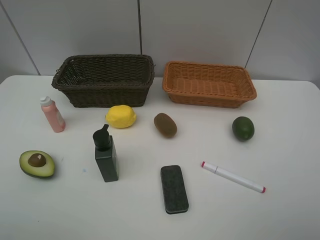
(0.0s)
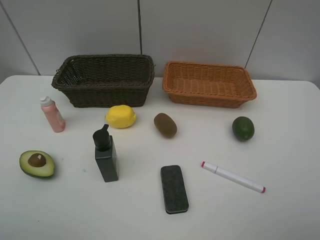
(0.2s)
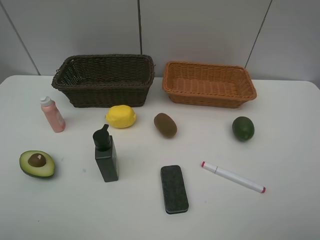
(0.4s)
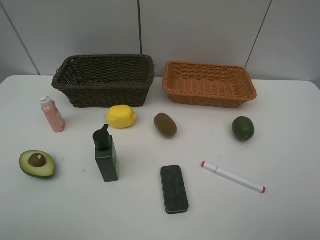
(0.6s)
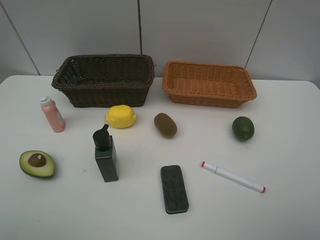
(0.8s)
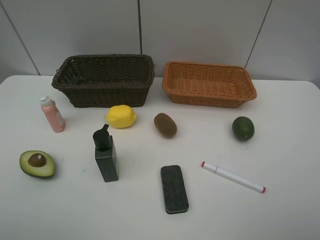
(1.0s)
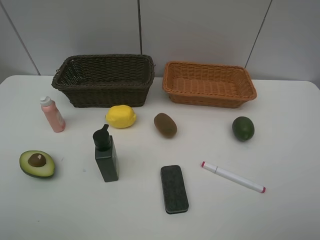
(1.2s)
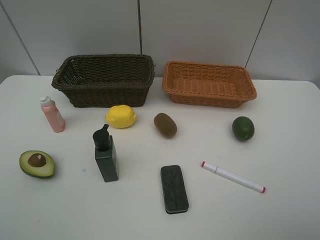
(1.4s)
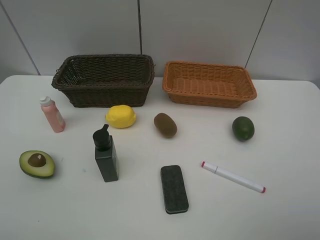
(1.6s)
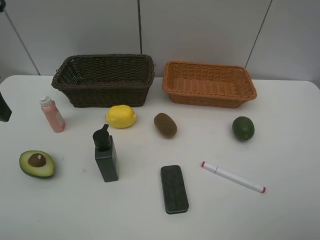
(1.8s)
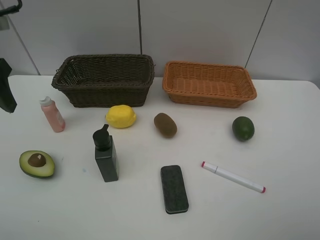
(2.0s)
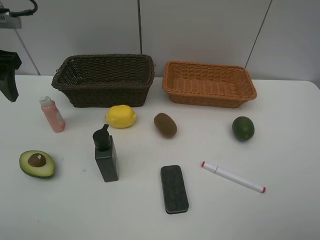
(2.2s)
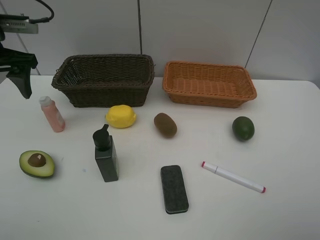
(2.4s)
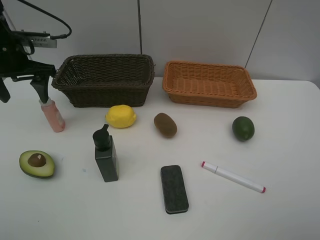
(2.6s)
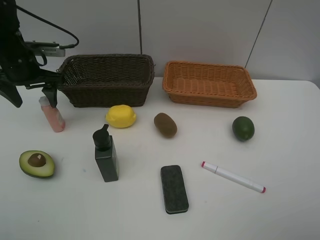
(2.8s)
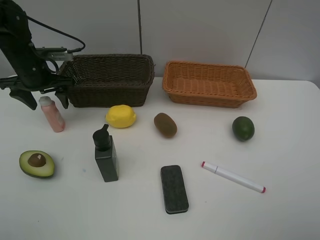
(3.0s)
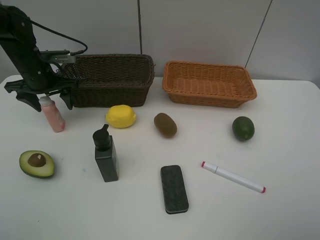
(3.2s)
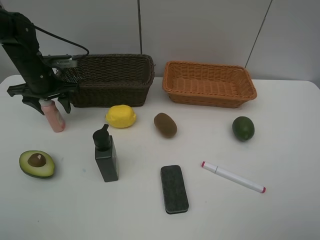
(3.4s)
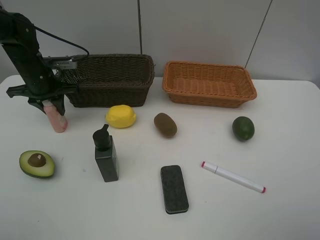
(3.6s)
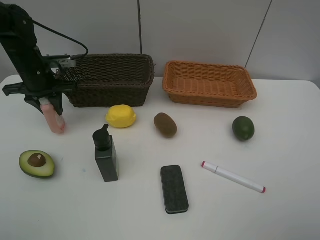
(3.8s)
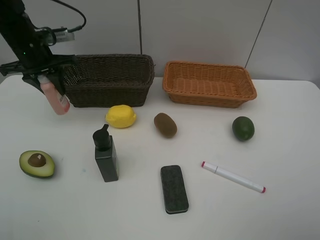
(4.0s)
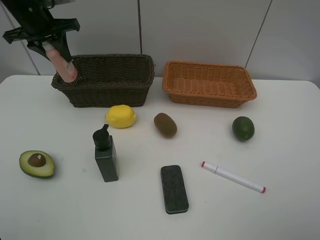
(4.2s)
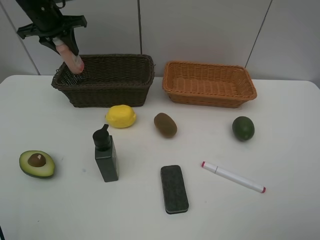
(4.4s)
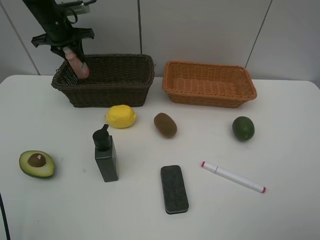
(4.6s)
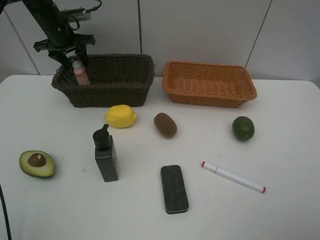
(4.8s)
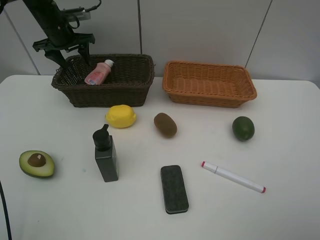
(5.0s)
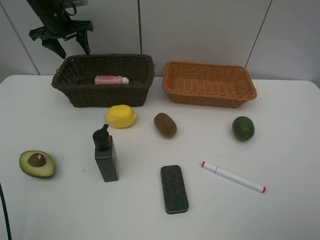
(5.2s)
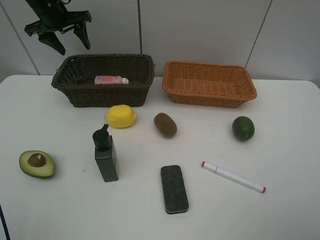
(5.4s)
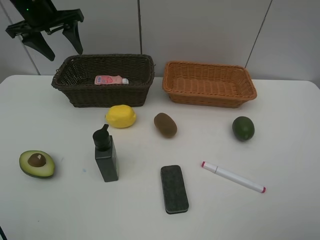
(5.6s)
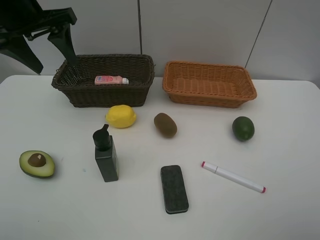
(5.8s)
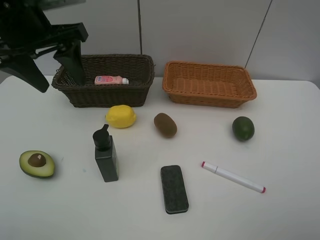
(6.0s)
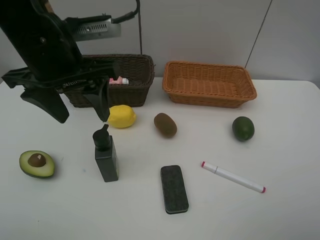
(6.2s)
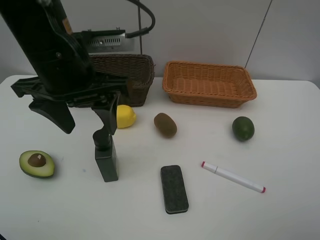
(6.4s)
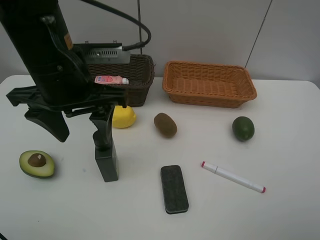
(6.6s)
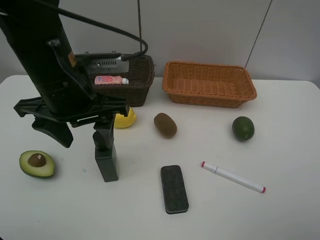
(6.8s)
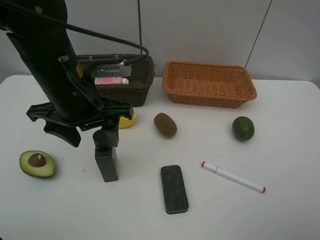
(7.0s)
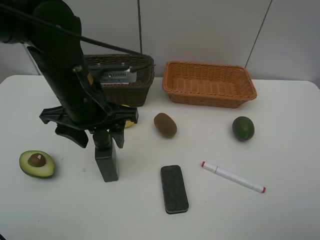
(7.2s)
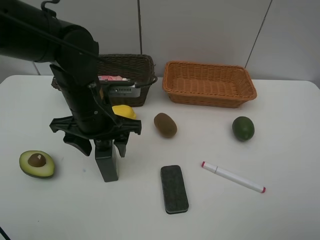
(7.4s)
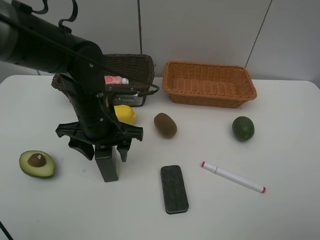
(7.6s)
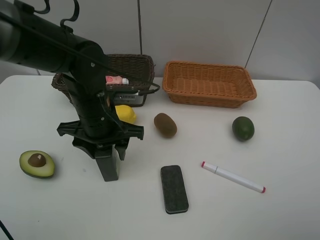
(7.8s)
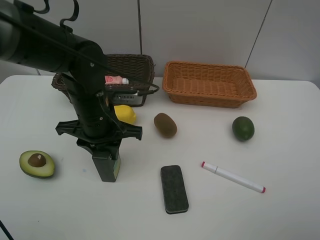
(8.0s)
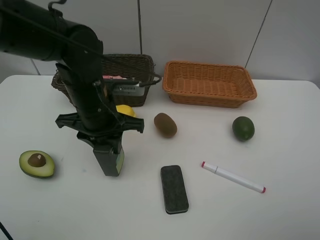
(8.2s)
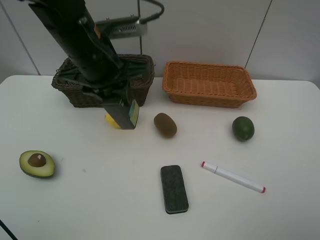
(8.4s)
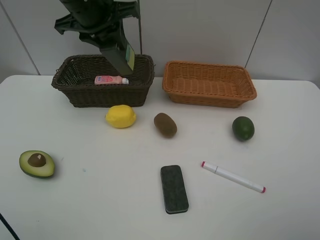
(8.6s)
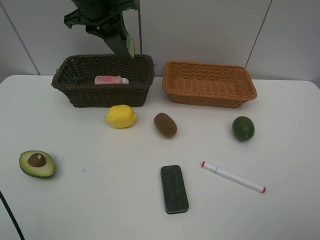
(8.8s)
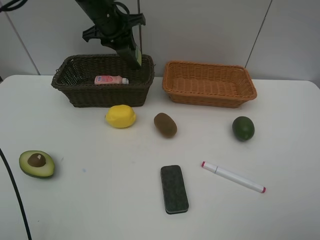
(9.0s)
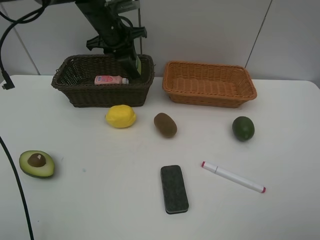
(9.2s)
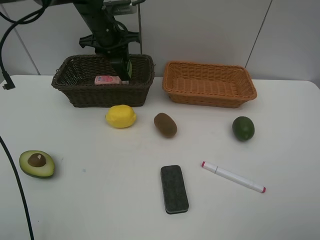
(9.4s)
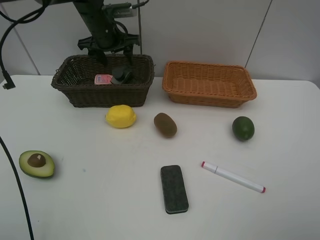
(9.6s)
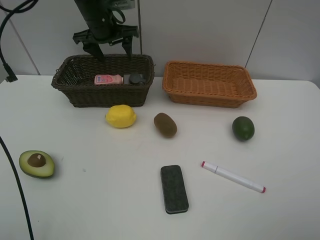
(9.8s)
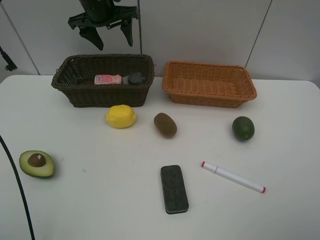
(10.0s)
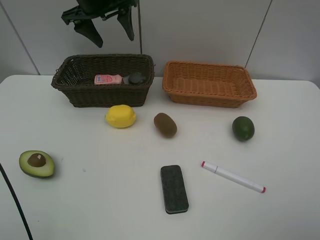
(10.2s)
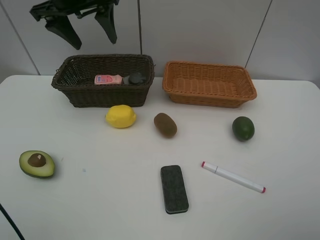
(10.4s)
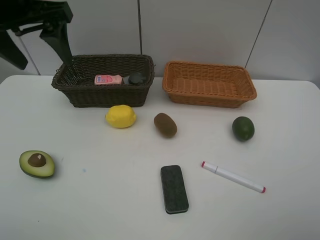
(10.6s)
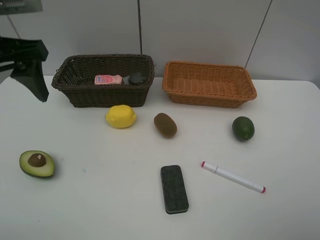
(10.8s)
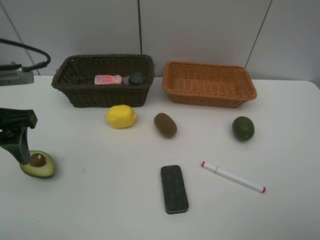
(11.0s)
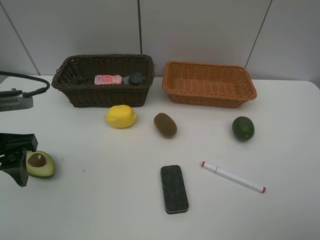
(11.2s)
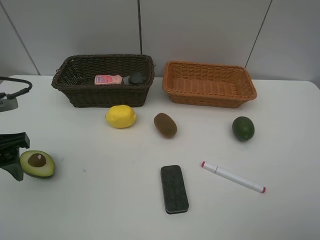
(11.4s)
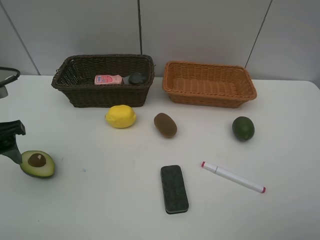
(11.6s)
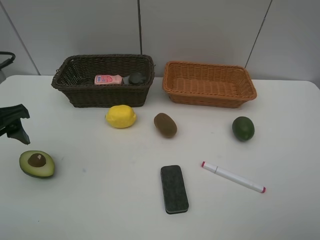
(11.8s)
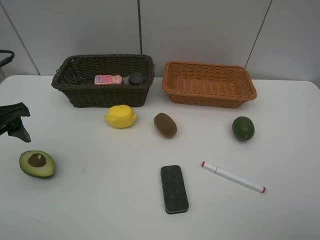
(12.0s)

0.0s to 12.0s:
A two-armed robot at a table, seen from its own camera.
Task of the whole recording: Place multiple objects separately in different baskets.
Step, 0.0s to 3.8s: Pick up the laundry detergent with left gripper.
Step, 4.0s to 4.8s: Place the laundry detergent in the dark basket with left gripper.
Step, 5.0s to 8.2s: Pick up the hard facial cleanser with left gripper.
Step, 8.4s to 9.8s: Place the hard facial cleanser in the dark basket with left gripper.
1.6s to 3.0s: The left gripper is displaced forward and downward by roughly 30 cm.
3.0s to 4.4s: The left gripper travels upward and forward by about 15 cm, and closes its fingers.
4.4s to 6.0s: The left gripper shifts some 20 cm backward, and opens its fingers.
6.0s to 7.6s: The left gripper is displaced downward and to the right by some 20 cm.
7.6s to 9.0s: The left gripper heads forward, covering approximately 25 cm, and closes.
9.0s to 10.4s: The left gripper heads backward and upward, covering about 15 cm, and opens up.
10.4s to 12.0s: The left gripper heads backward, downward and to the left, covering some 25 cm.

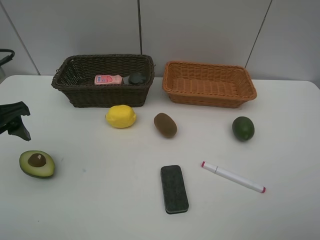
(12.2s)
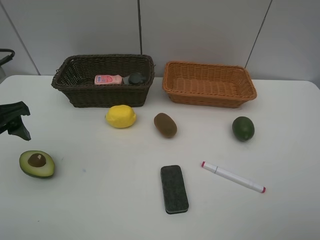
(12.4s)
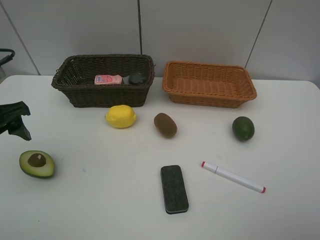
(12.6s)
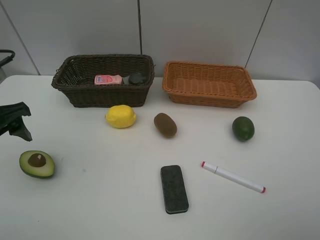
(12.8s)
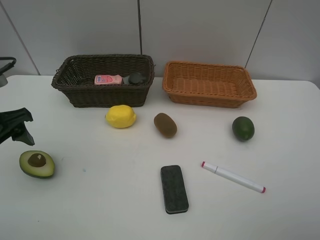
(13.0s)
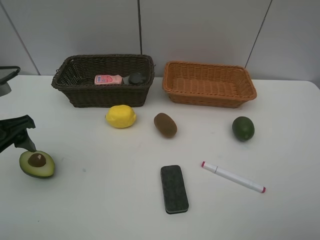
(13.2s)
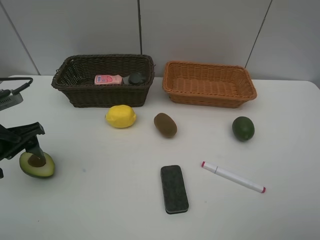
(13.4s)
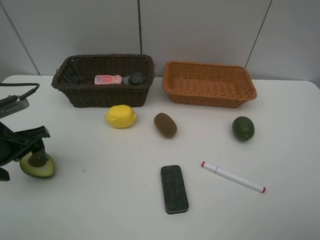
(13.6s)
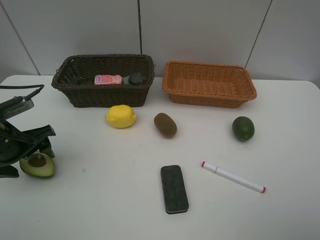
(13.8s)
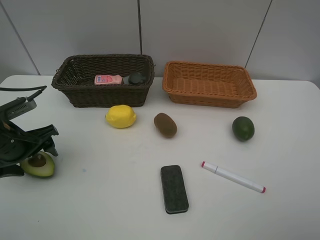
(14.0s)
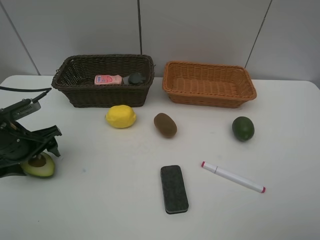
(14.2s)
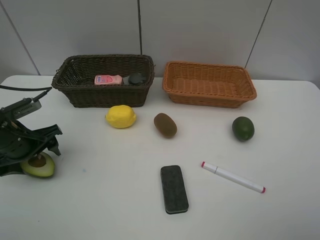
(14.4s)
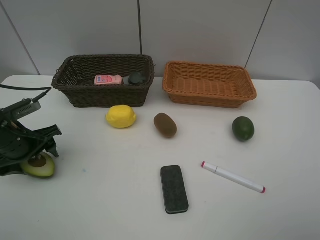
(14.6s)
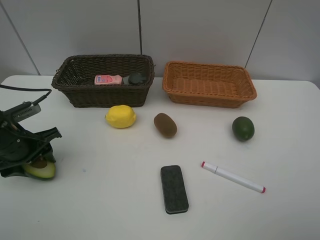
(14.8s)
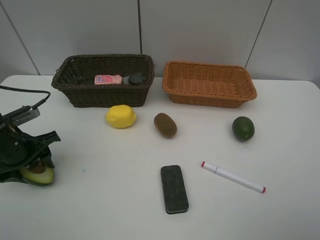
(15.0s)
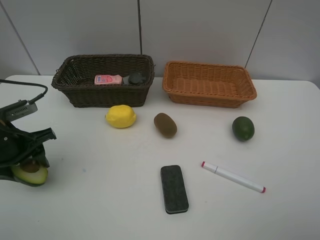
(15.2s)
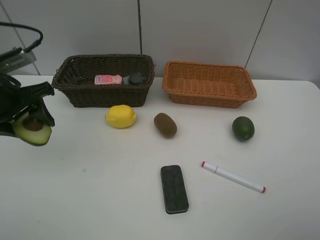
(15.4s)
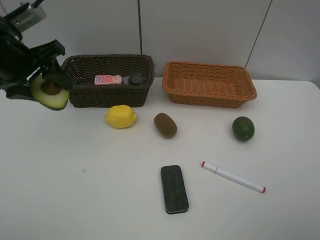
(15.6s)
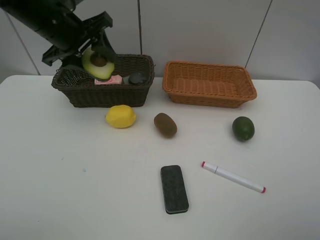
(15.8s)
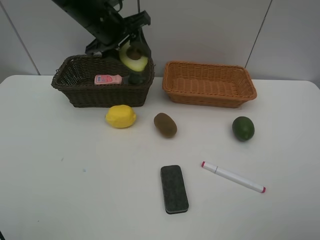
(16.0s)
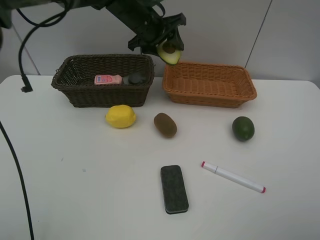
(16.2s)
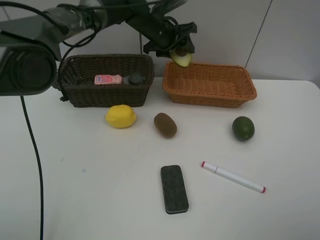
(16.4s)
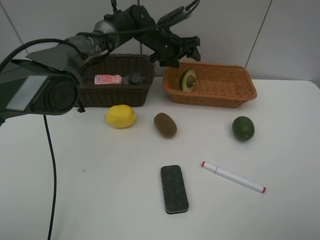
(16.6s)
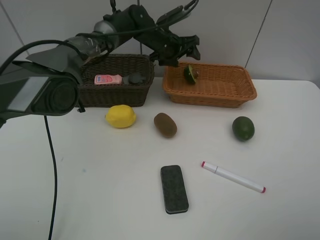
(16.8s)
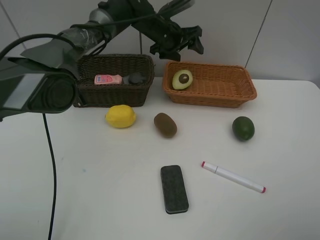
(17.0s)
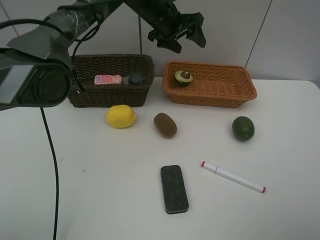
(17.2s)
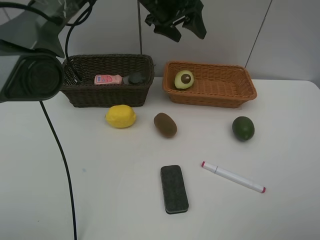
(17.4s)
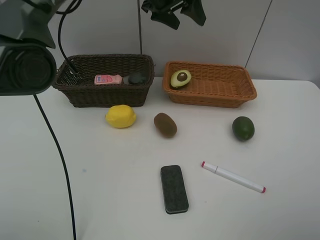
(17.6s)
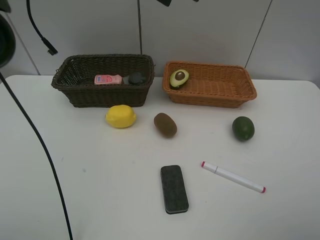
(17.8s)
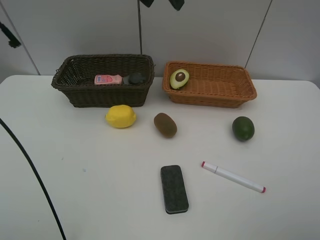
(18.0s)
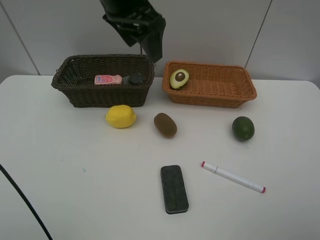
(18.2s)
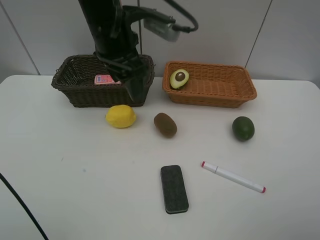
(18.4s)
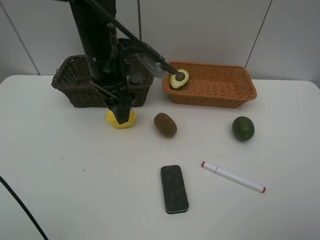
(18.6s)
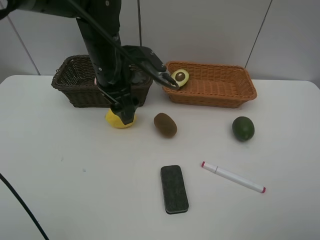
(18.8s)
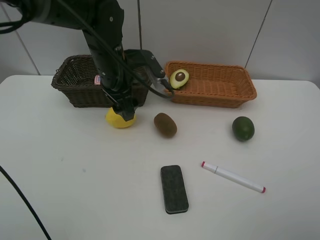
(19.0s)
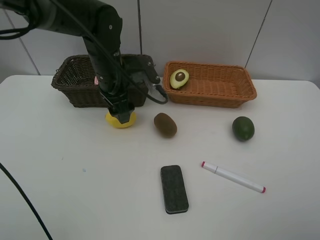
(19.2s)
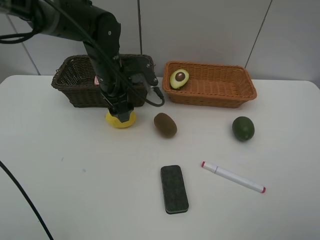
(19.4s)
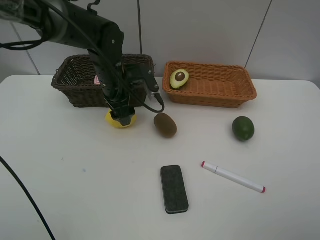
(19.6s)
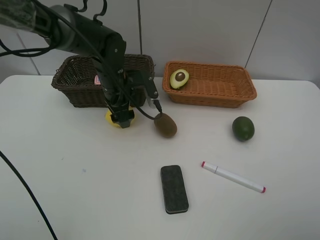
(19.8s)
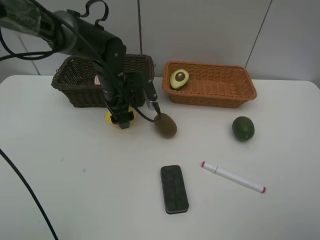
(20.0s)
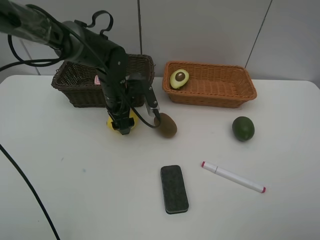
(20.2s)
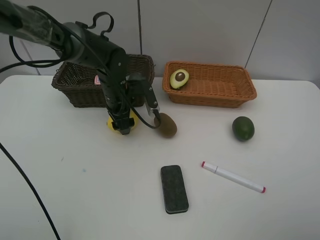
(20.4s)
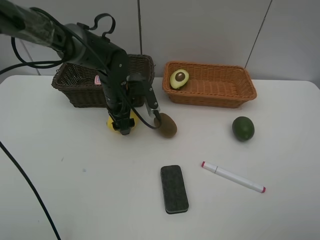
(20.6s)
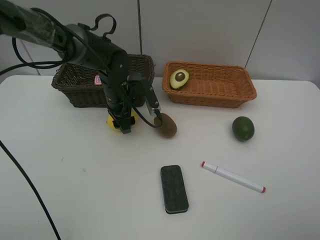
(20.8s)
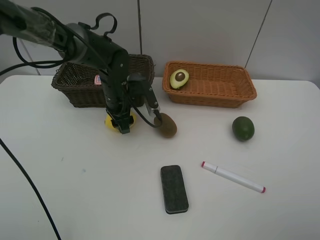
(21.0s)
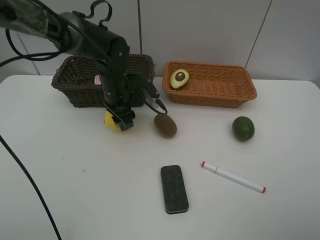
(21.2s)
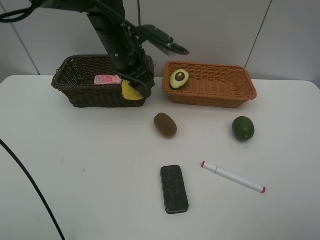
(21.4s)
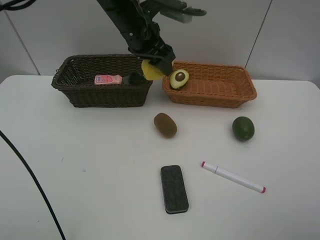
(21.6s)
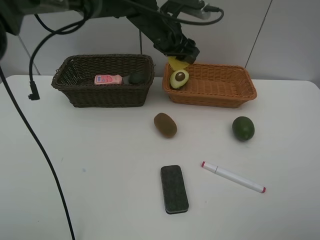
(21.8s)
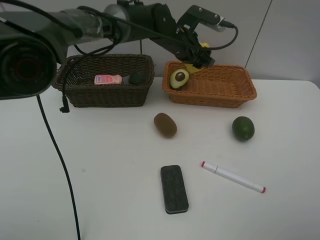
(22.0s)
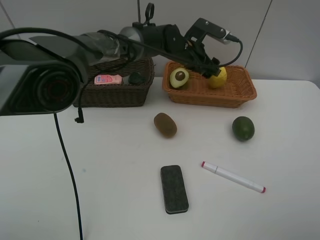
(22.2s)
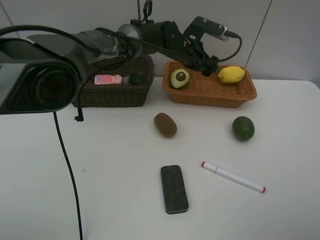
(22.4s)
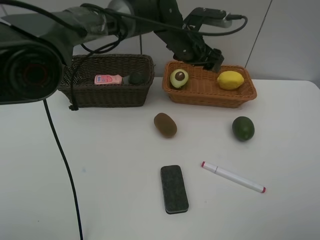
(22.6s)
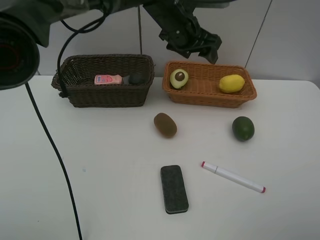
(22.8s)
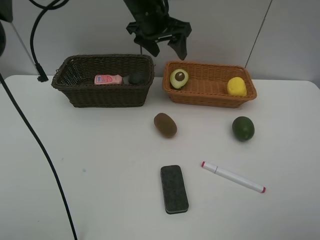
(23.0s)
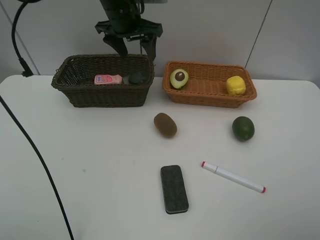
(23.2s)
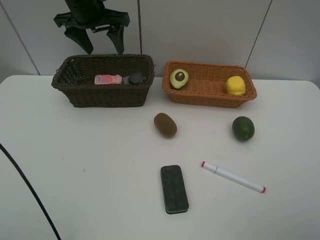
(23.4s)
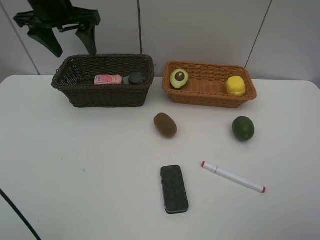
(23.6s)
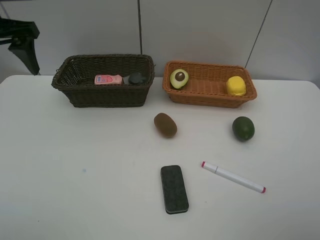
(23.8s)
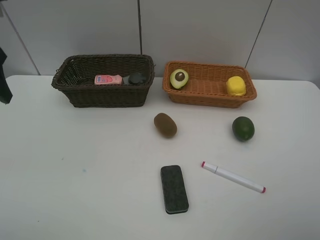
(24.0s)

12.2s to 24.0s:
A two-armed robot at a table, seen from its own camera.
Task of the whole recording: Place multiple objects separately in different baskets.
Step, 12.2s to 15.2s: Pick up the avocado with left gripper.
Step, 15.4s to 16.6s: Place the avocado in the light basket with left gripper.
Step, 16.8s to 21.2s: Pick up the lemon with left gripper.
Step, 21.4s to 22.6s: Place the lemon in the light basket with left gripper.
12.2s to 13.6s: The left gripper heads downward, covering approximately 5 cm.
13.6s to 15.2s: The left gripper closes.
15.2s to 16.6s: The left gripper goes approximately 40 cm forward and to the right, and opens up.
16.6s to 18.2s: The left gripper goes about 25 cm backward and upward.
18.2s to 19.6s: The left gripper shifts roughly 20 cm downward.
19.6s to 21.0s: There are only small adjustments of the grippers.
21.0s to 22.6s: The left gripper shifts some 20 cm to the right, upward and forward, and opens its fingers.
22.6s to 24.0s: The left gripper goes approximately 40 cm to the left and backward.
